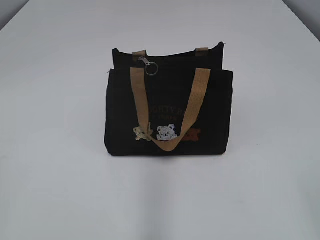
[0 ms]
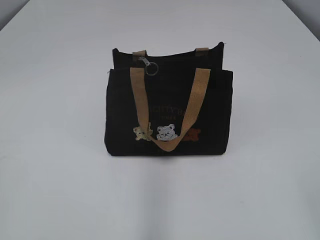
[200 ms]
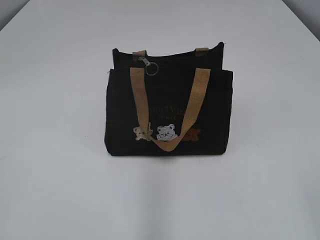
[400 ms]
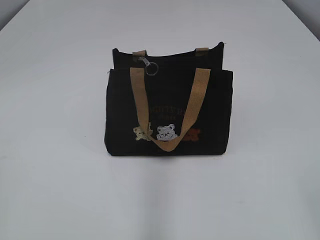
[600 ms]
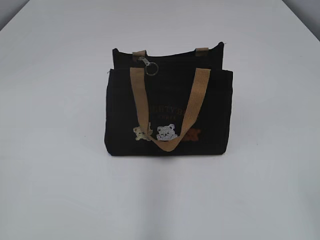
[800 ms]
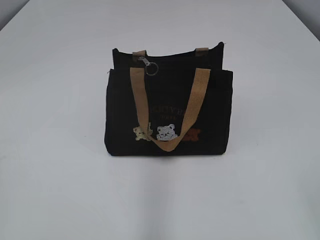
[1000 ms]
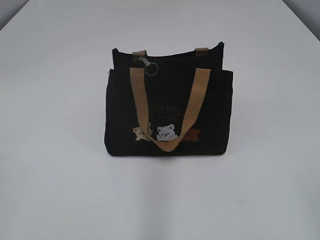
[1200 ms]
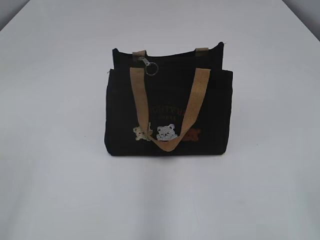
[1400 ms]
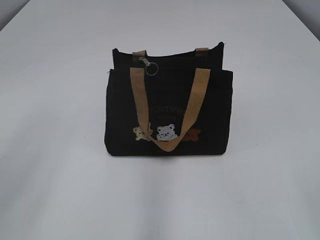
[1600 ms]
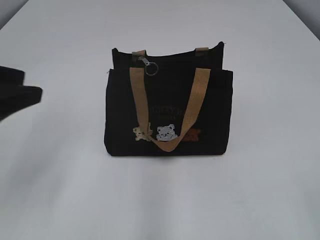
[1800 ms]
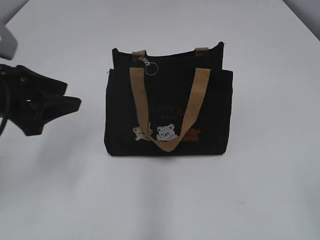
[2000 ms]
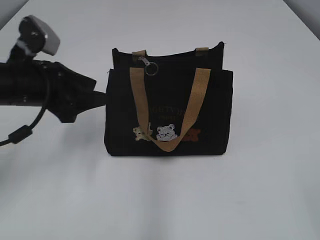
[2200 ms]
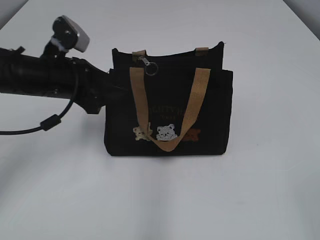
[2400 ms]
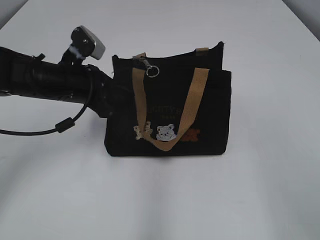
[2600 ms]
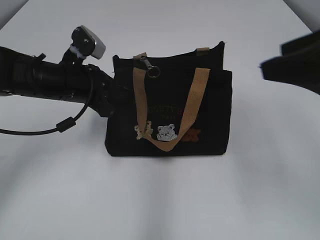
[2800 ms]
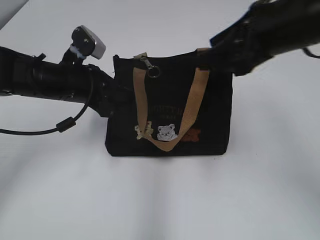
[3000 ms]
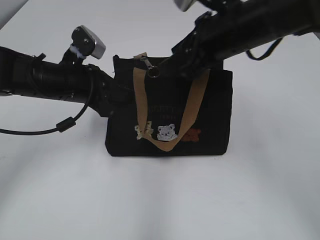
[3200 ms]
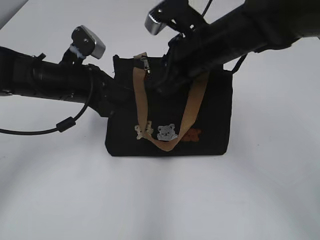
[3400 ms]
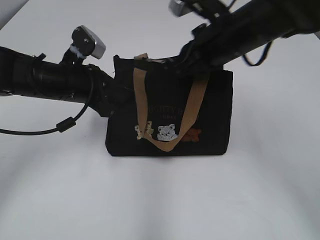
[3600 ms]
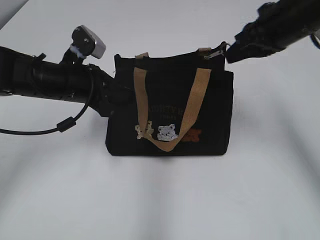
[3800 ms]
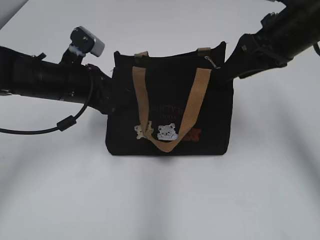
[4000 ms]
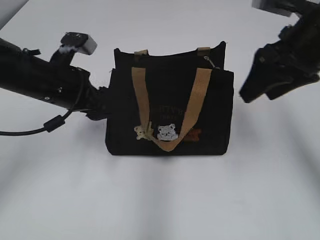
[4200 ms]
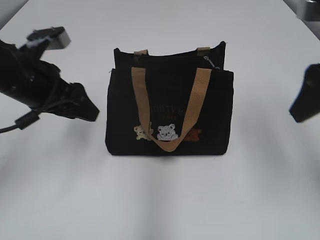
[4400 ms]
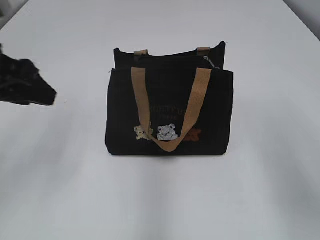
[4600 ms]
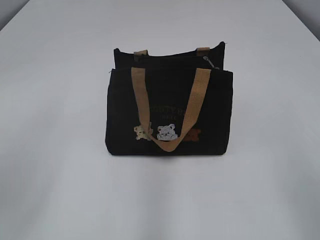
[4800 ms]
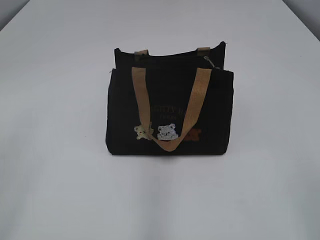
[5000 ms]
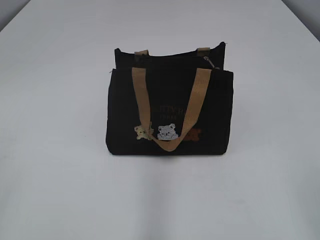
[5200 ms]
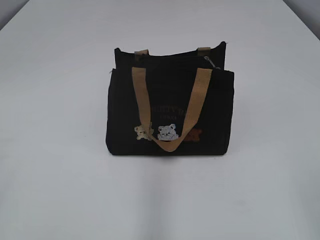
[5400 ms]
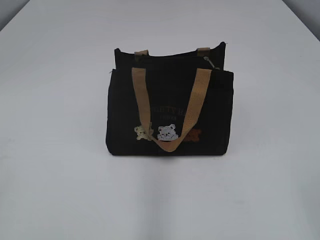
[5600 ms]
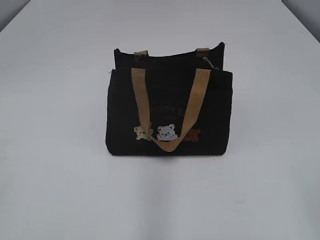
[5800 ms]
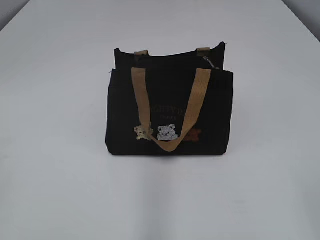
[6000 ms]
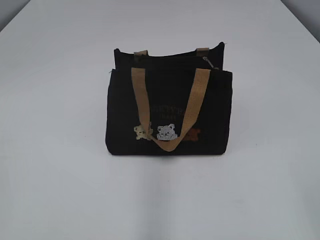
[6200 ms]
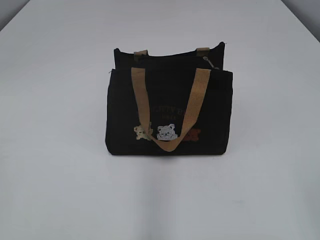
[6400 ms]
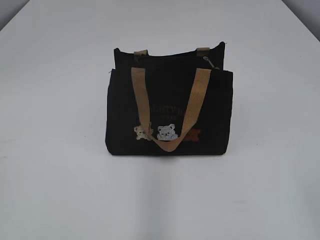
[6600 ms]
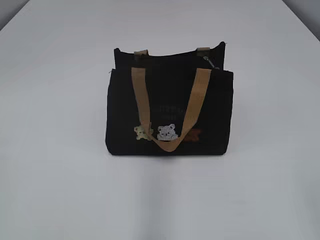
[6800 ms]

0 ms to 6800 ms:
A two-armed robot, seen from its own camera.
Step, 0 ms to 3800 ms: Pull open the zipper with your right hand.
Step, 4000 ms to 4200 ms: Hold the bag with your left hand.
1400 ms to 2800 ms: The left gripper moves forward, to the right and downward, approximately 35 cm, and closes. Meanwhile the right gripper goes approximately 15 cm forward.
2800 ms to 4000 ms: The right gripper goes about 20 cm forward, and closes and opens again.
4000 ms to 5400 ms: The right gripper is displaced backward by approximately 35 cm. Meanwhile the left gripper heads backward and to the left, covering about 35 cm, and opens its fingers.

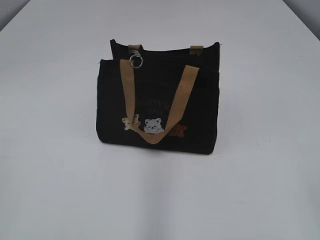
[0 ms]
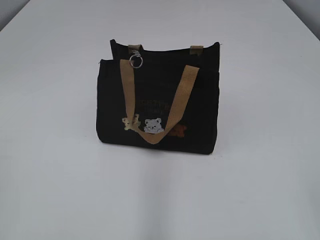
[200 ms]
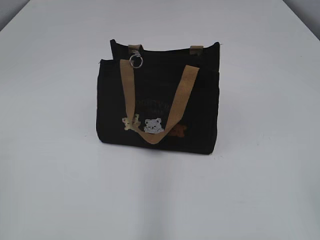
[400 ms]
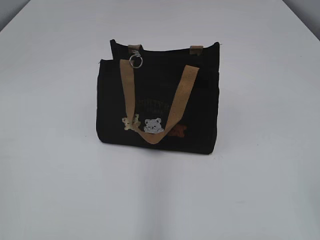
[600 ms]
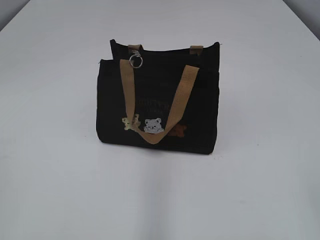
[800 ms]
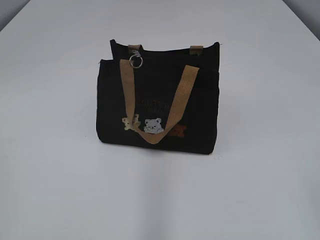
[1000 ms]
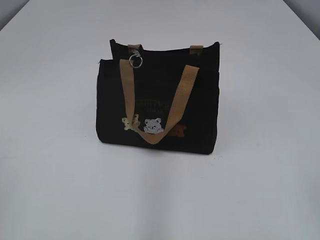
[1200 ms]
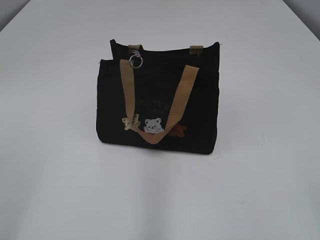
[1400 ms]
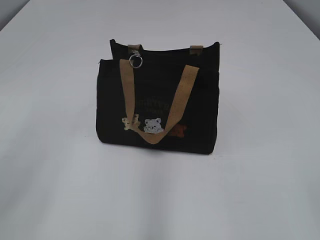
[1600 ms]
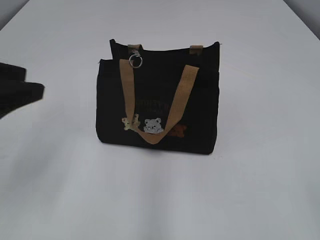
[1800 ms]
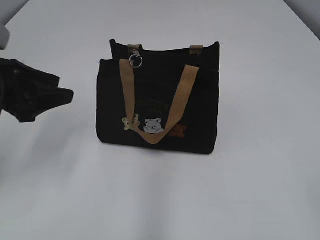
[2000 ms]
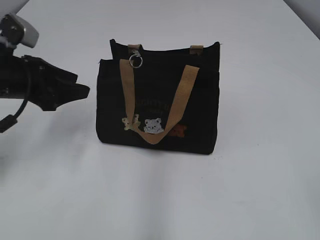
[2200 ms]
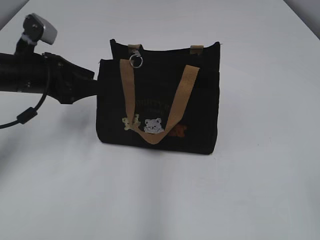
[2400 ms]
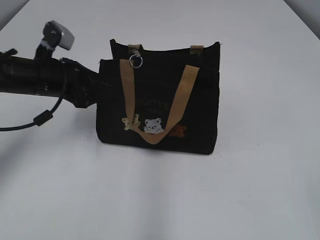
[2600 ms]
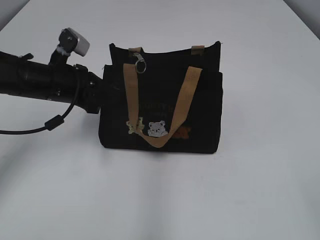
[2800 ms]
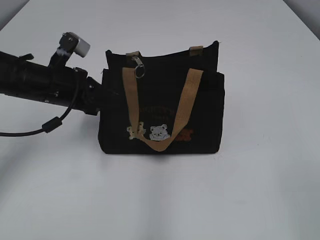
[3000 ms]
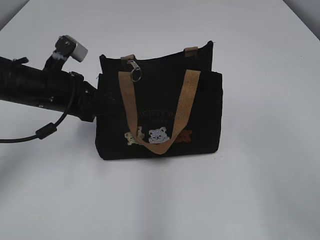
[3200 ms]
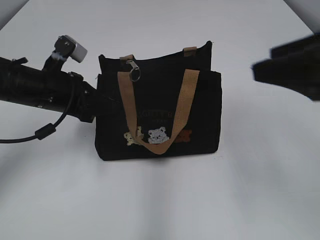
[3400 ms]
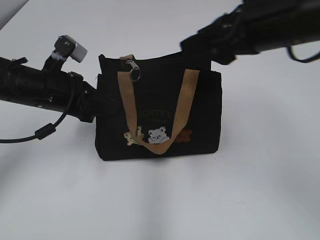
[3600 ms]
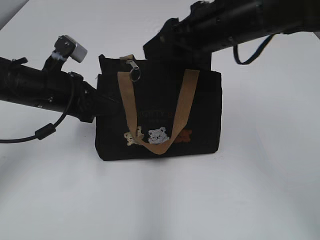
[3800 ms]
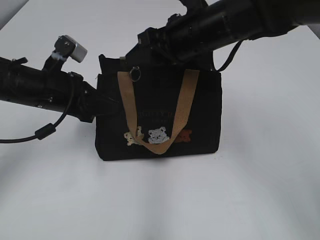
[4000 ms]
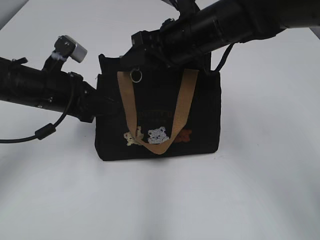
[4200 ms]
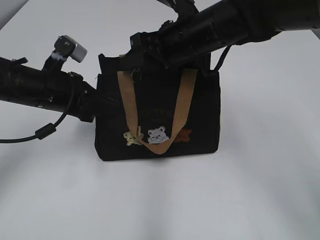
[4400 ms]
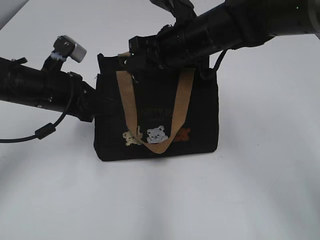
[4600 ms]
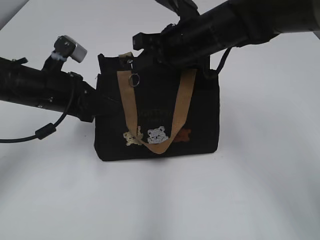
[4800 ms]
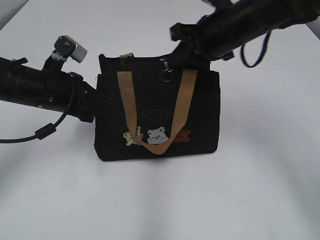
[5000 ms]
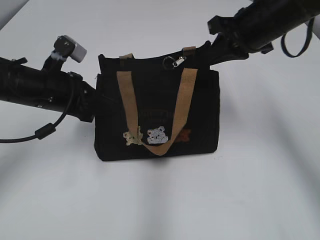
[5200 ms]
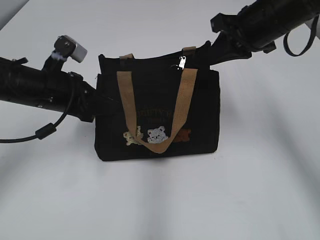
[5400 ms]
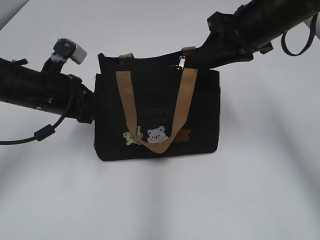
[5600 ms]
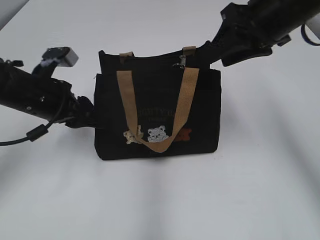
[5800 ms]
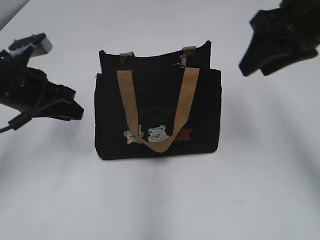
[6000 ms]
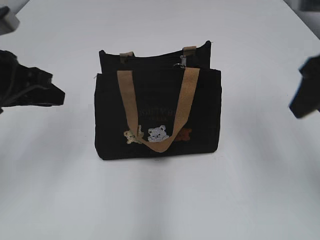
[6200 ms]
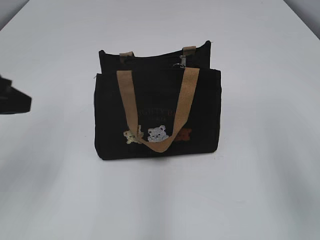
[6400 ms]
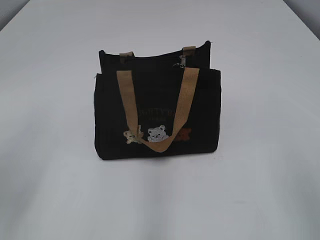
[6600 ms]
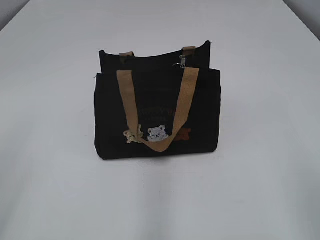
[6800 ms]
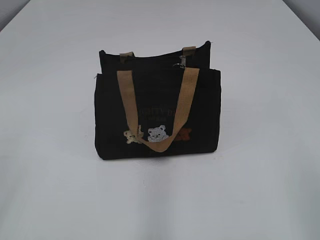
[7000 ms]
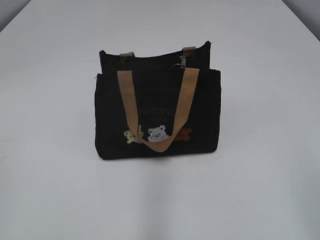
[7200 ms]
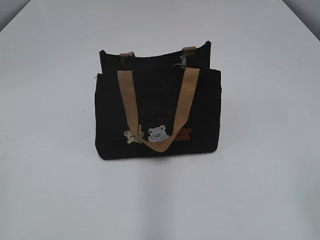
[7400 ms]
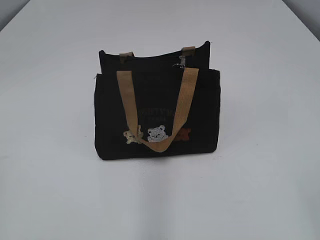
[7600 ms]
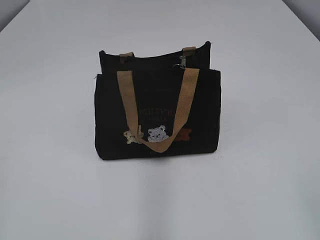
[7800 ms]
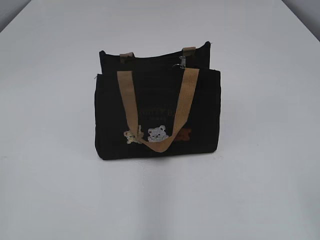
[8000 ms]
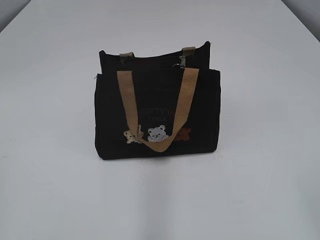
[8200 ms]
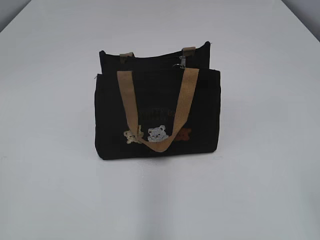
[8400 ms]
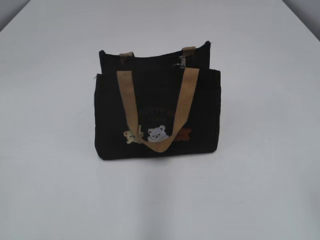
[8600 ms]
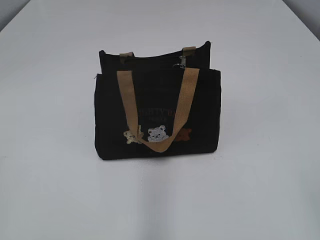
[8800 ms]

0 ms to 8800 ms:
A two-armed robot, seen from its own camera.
Step, 0 ms to 5200 ms: Zip up the bag with your right hand.
Step, 5400 ms to 5800 ms: Grab the zipper with your left hand.
1400 ms to 3000 ms: The left gripper shifts some 35 cm forward, and closes its fingers.
3000 ms to 4400 ms: The right gripper heads forward and to the left, covering about 40 cm.
4400 ms to 5800 ms: The right gripper goes approximately 10 cm to the right, and closes, then reopens. Meanwhile the left gripper opens its fingers.
5800 ms to 7400 ms: The left gripper moves backward and to the left, approximately 35 cm; the right gripper heads backward, covering about 35 cm.

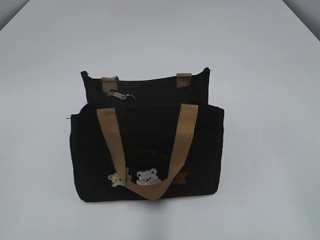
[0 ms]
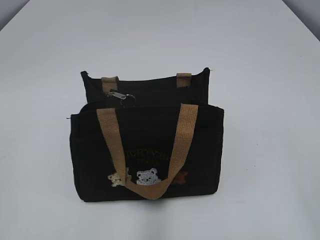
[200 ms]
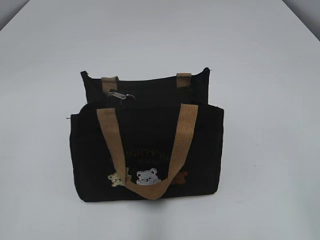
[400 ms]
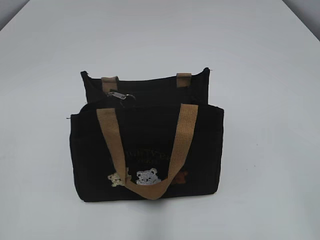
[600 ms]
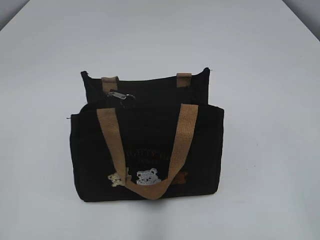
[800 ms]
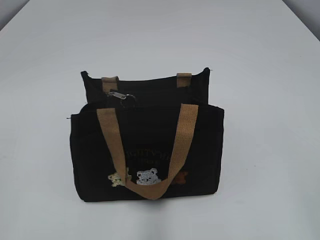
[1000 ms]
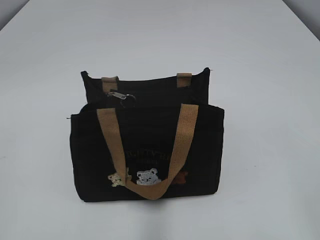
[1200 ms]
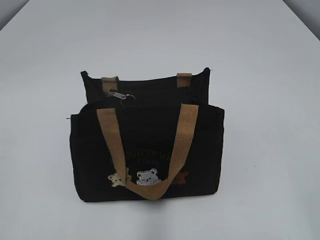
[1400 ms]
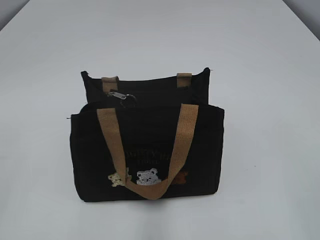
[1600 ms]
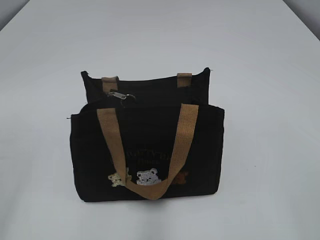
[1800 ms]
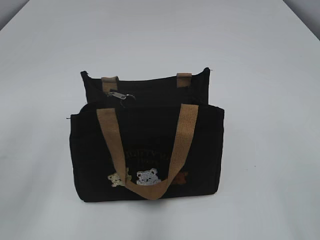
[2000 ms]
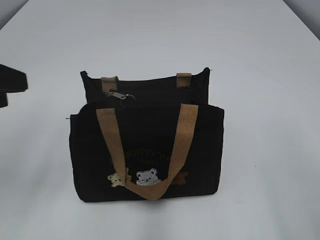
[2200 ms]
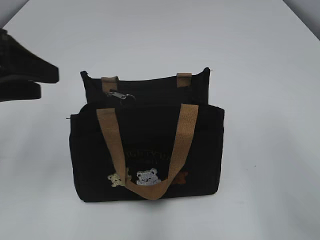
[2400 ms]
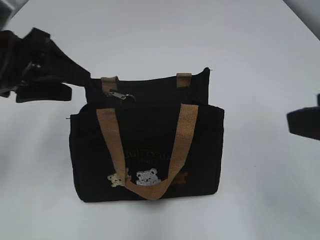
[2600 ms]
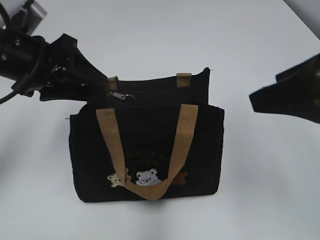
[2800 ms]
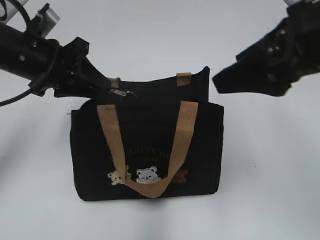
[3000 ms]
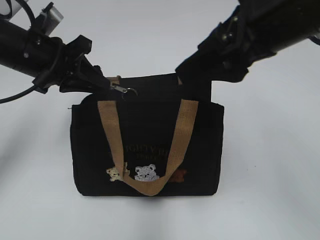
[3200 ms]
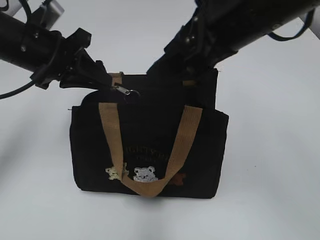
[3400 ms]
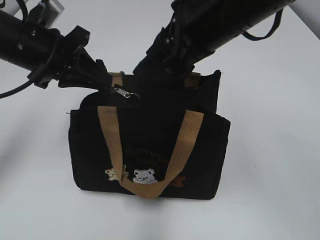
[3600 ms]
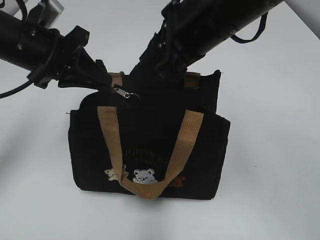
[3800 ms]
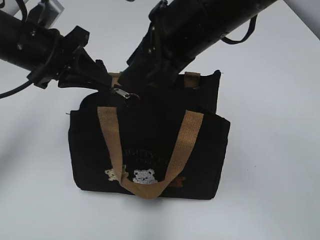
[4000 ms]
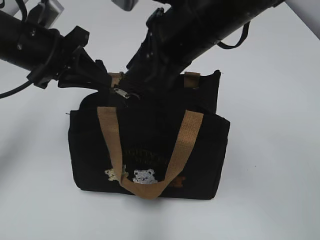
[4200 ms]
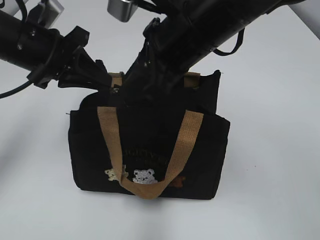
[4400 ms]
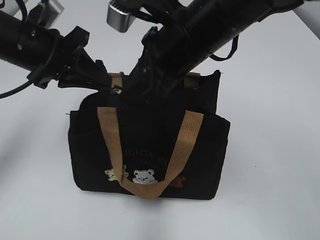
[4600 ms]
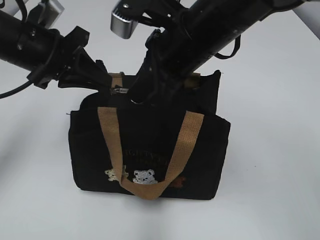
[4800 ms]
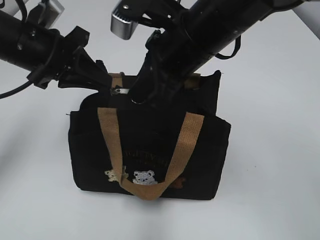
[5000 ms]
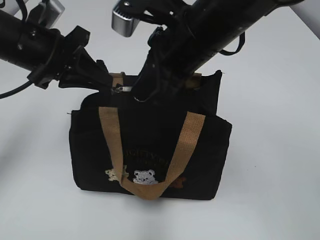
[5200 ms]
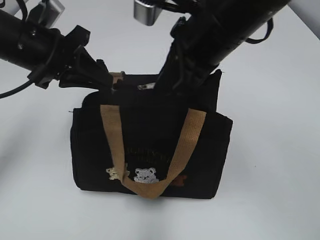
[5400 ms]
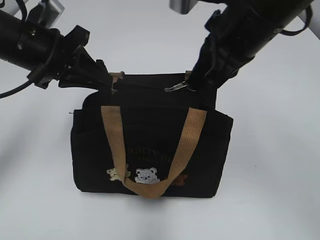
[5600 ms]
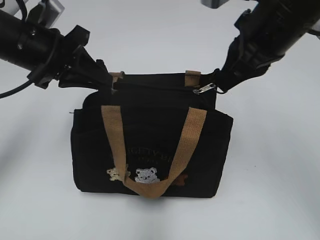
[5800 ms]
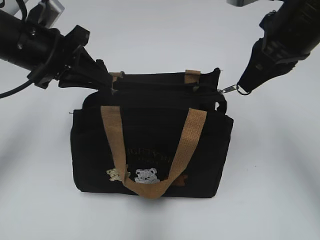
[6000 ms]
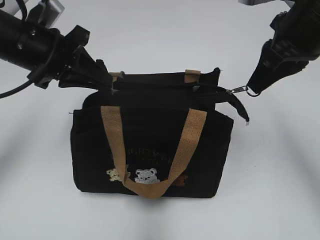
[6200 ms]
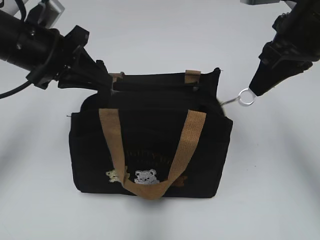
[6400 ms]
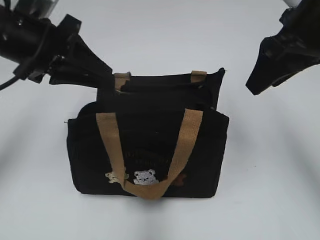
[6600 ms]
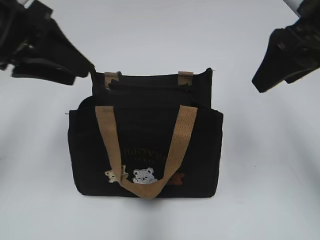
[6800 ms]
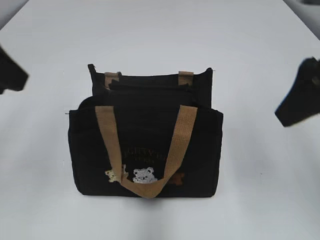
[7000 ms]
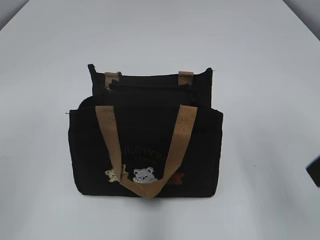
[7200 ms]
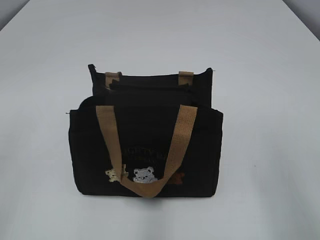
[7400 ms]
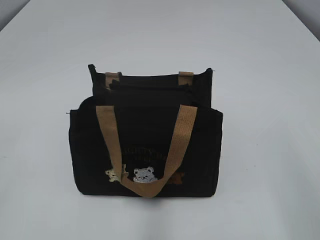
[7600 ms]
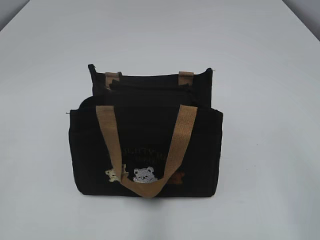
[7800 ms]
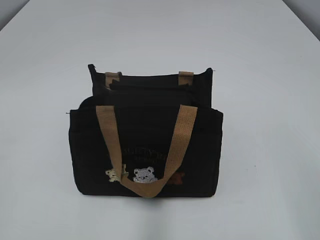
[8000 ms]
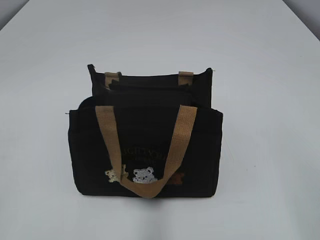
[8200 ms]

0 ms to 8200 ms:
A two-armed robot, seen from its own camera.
Step, 0 ms to 6400 ms: Pull open the zipper with your right hand.
1600 ms to 3200 ms: The right gripper moves forward and to the left, roughly 25 cm. The left gripper travels forward by approximately 35 cm, and opens and closes again.
3200 ms to 5000 ms: The right gripper moves to the left, forward and downward, approximately 15 cm, and closes.
5000 ms to 6600 ms: The right gripper is displaced to the right by approximately 15 cm.
6600 ms to 8200 ms: The left gripper heads backward and to the left, covering about 35 cm, and opens, while the right gripper shifts about 30 cm backward, and opens.
